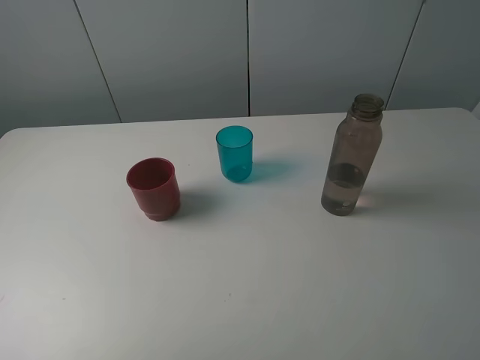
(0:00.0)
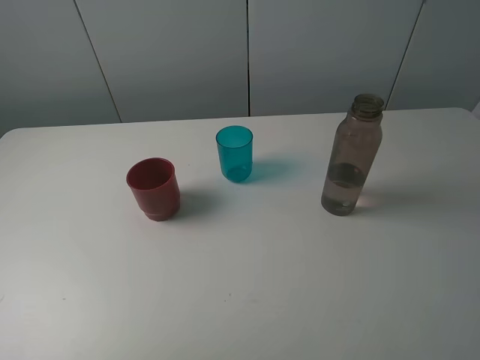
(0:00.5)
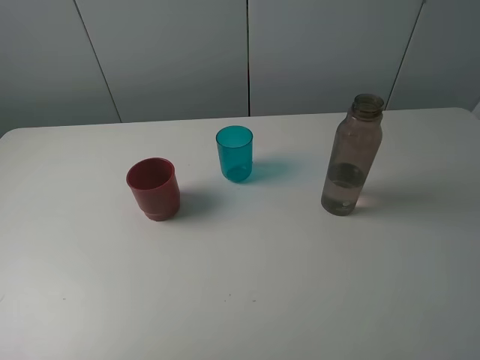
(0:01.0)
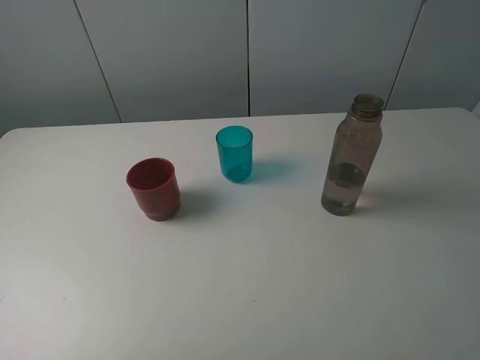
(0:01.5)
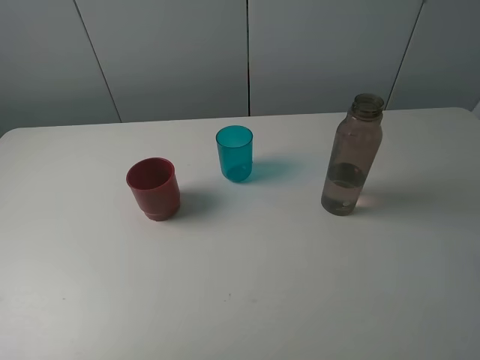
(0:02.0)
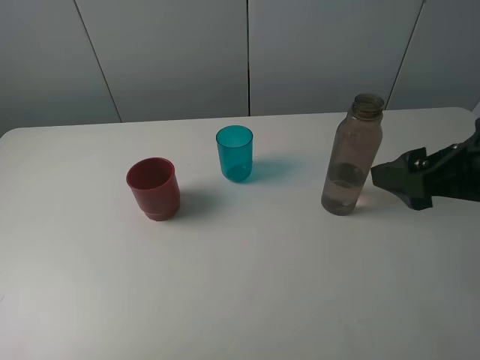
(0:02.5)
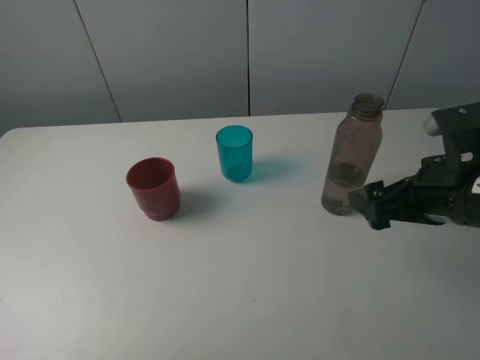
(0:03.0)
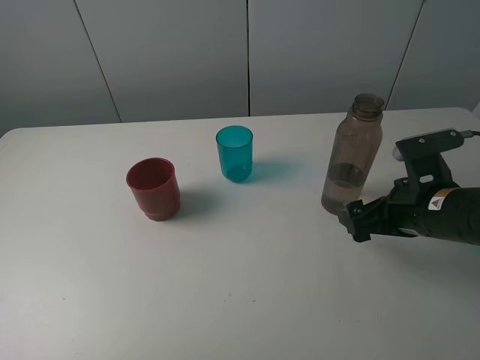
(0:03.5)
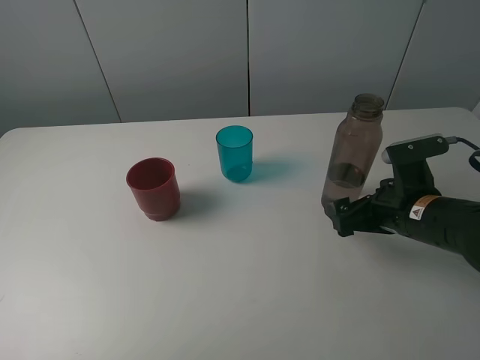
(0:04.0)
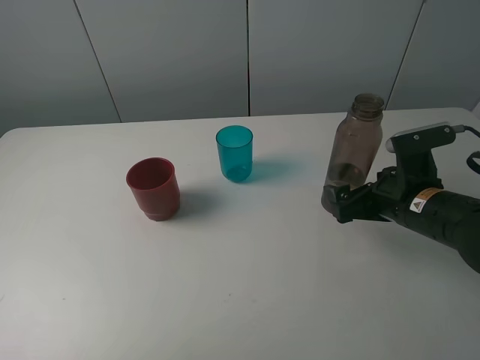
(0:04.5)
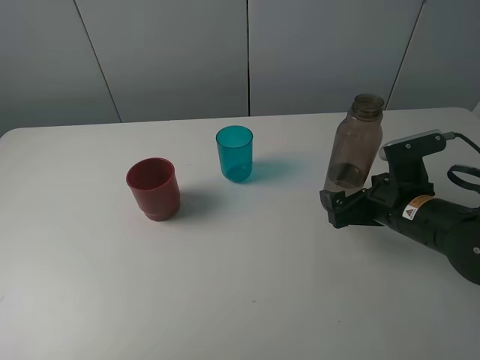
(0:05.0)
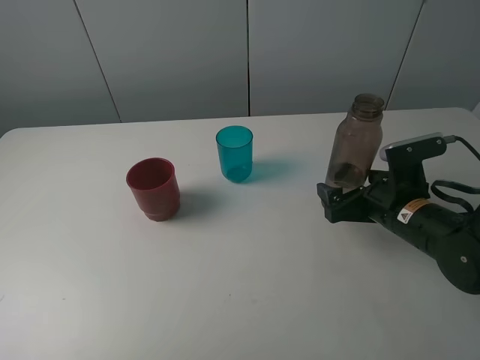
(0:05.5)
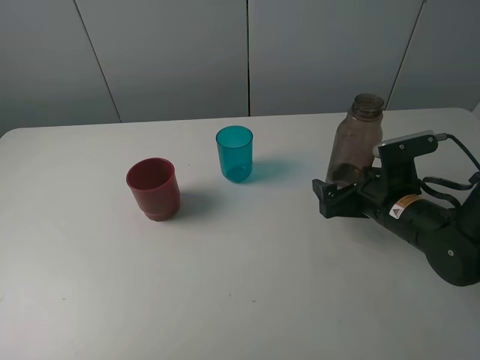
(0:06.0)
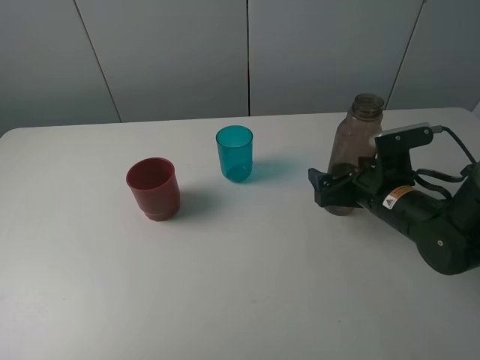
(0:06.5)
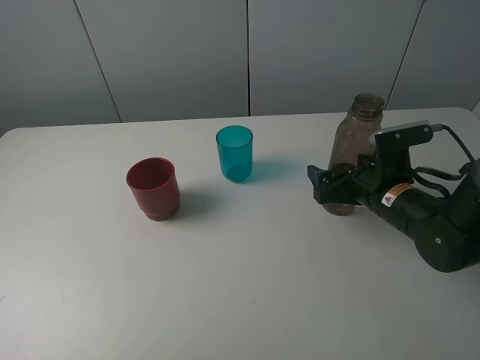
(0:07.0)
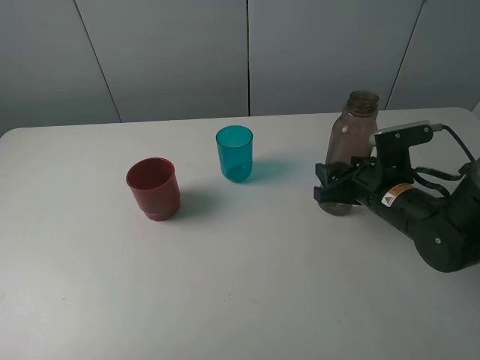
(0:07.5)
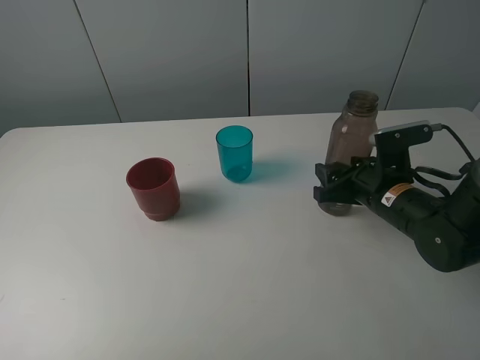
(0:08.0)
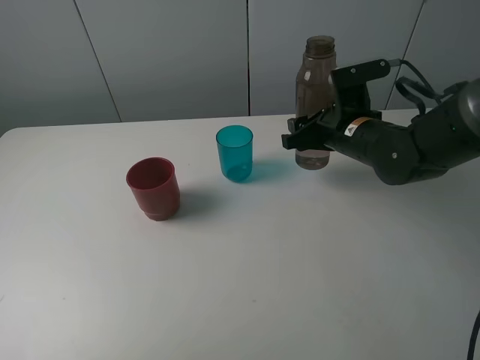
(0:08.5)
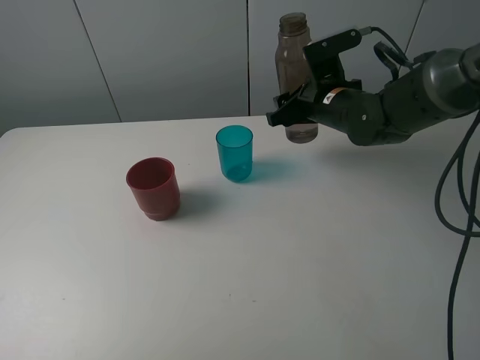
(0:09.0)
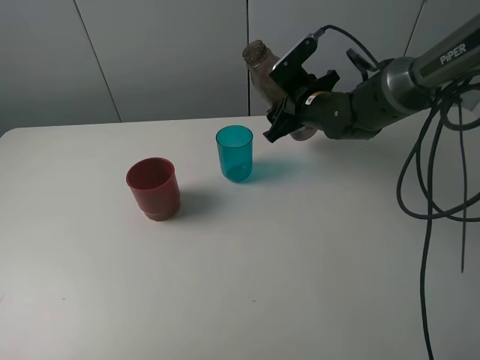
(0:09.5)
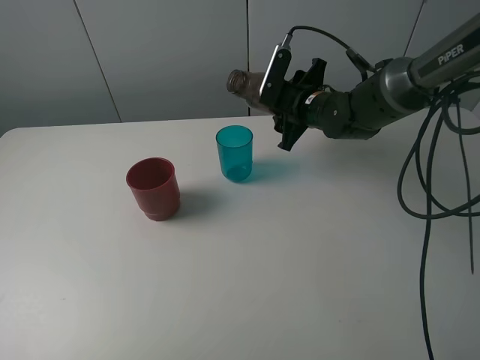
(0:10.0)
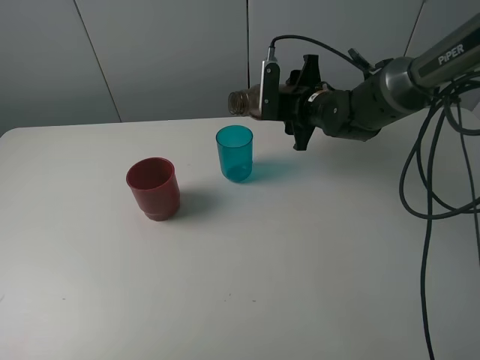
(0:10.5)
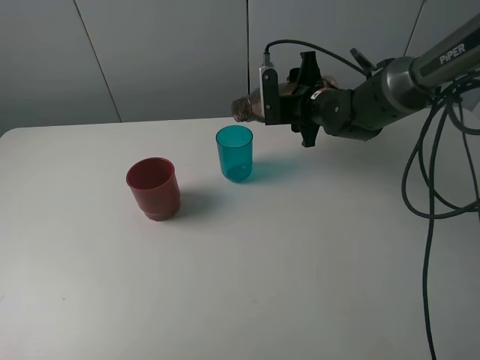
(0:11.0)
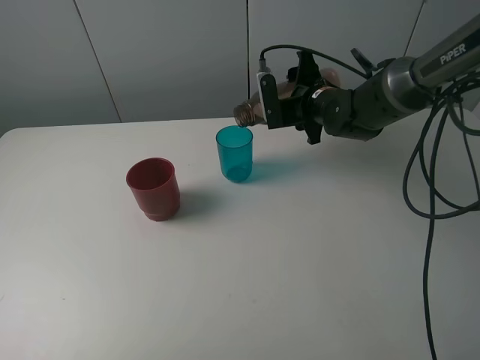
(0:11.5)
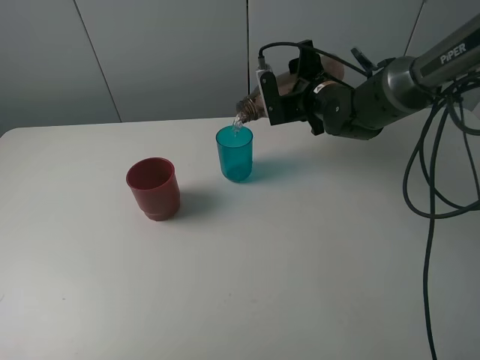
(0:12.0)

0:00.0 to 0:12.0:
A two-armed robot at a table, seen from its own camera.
Task of the whole recording: pick up the bottle and pour water into the cup, then pick up the cup containing water and pour it into another cup.
Step, 0:00.0 to 0:07.5: Grasp the brown bottle with the right gripper.
0:02.0 to 0:04.0: The right gripper travels downward and forward by approximately 25 cm.
0:04.0 to 0:06.0: There are only small adjustments of the grippers.
0:06.0 to 0:08.0: The right gripper closes.
0:08.0 to 0:10.0: The right gripper travels forward and to the left by some 15 cm.

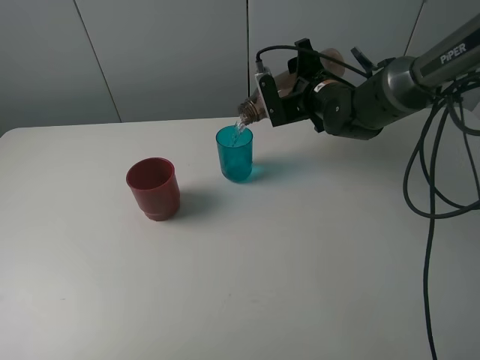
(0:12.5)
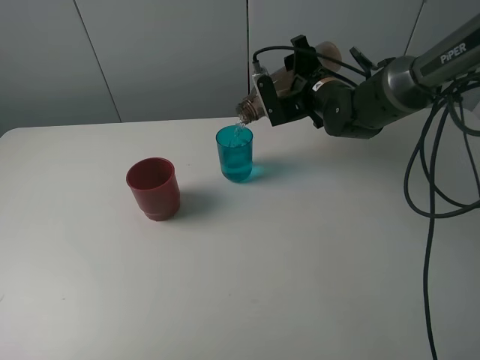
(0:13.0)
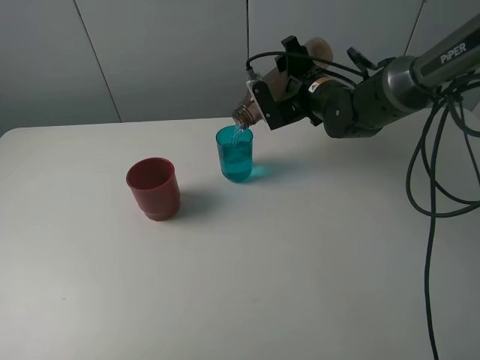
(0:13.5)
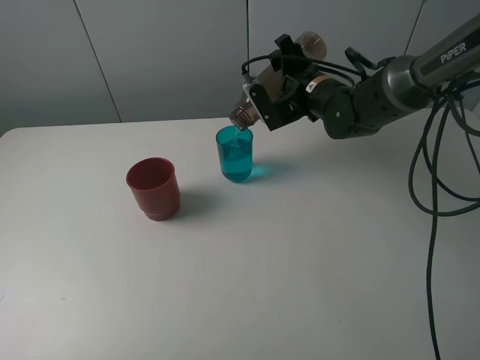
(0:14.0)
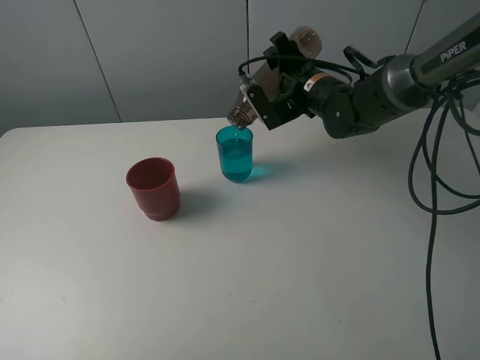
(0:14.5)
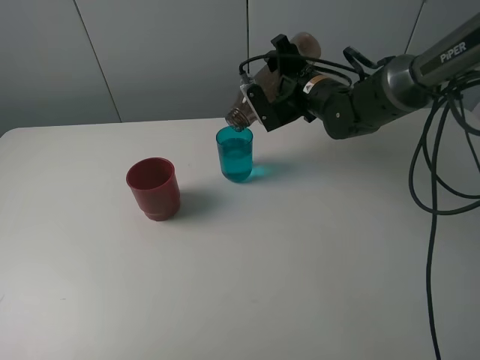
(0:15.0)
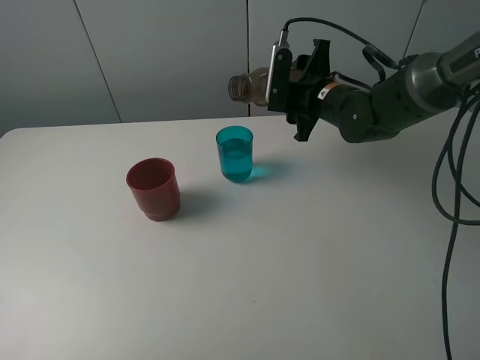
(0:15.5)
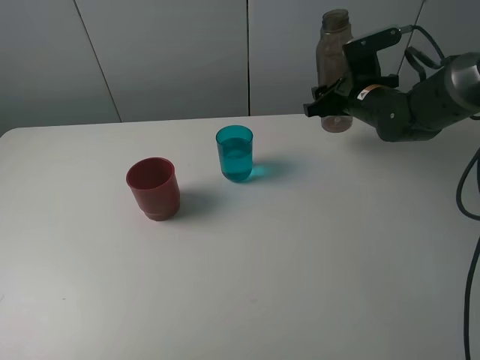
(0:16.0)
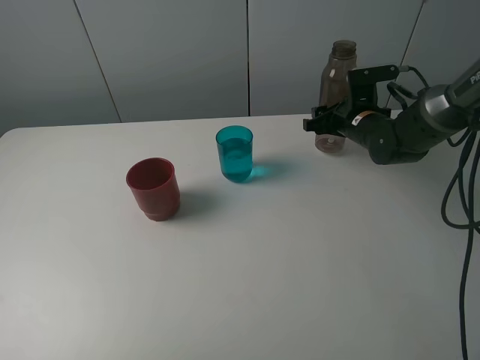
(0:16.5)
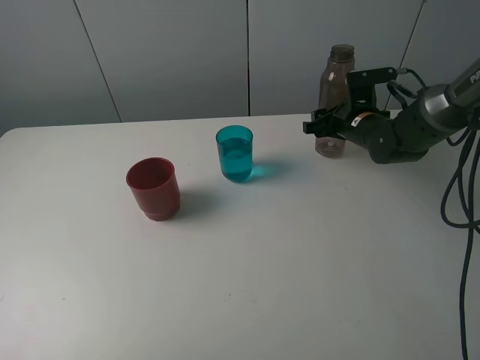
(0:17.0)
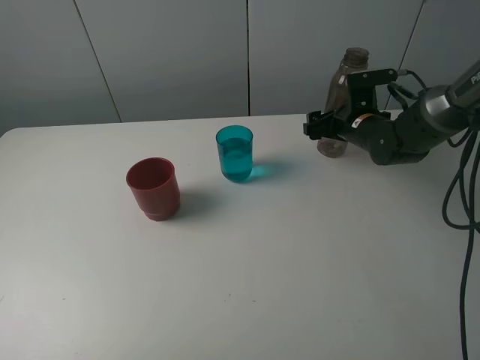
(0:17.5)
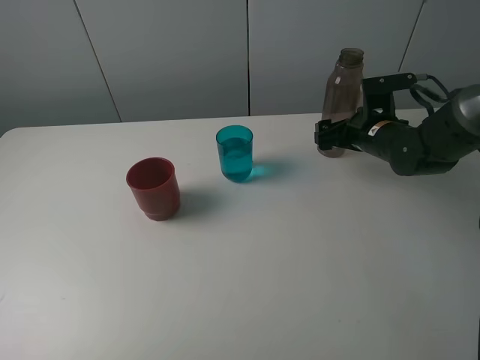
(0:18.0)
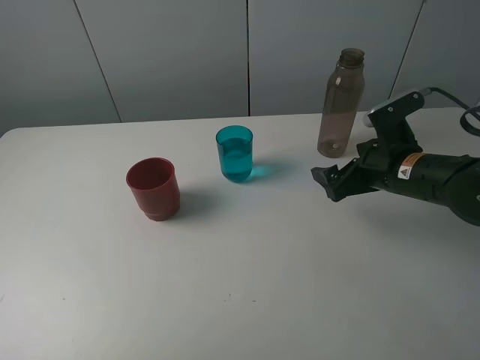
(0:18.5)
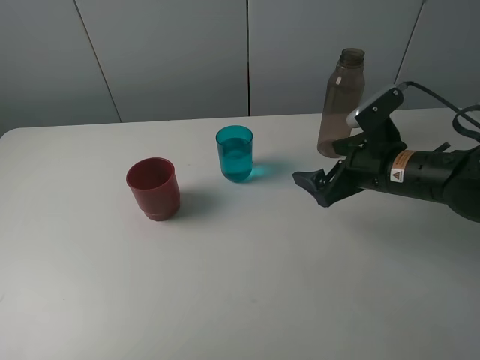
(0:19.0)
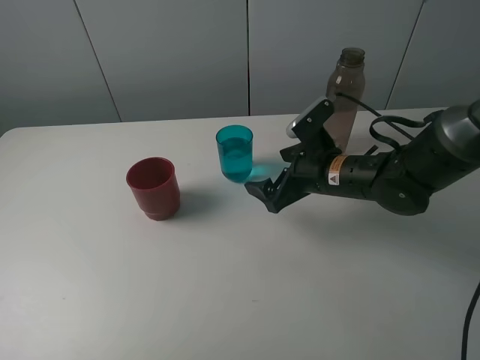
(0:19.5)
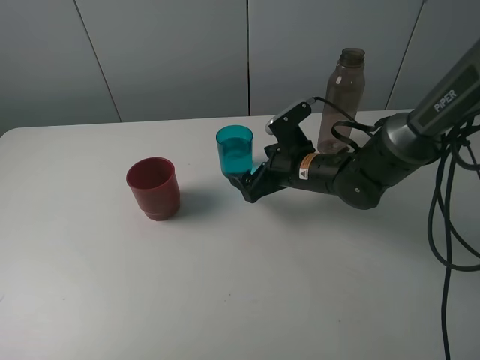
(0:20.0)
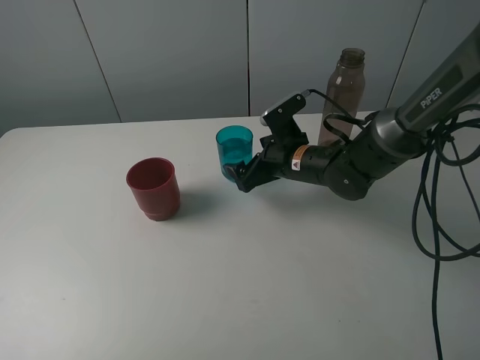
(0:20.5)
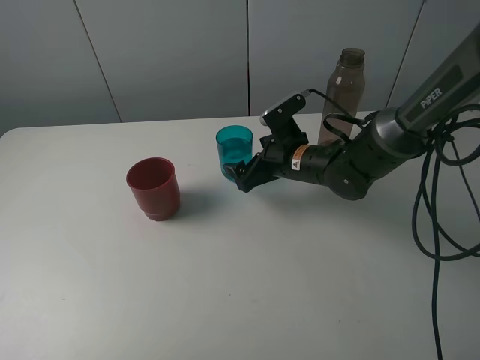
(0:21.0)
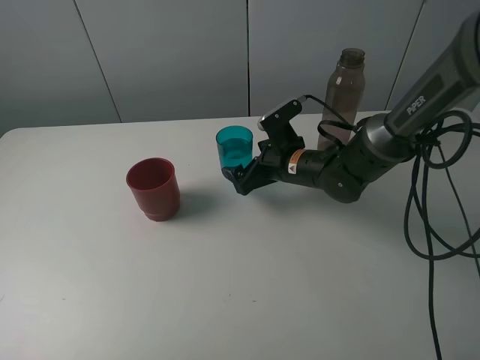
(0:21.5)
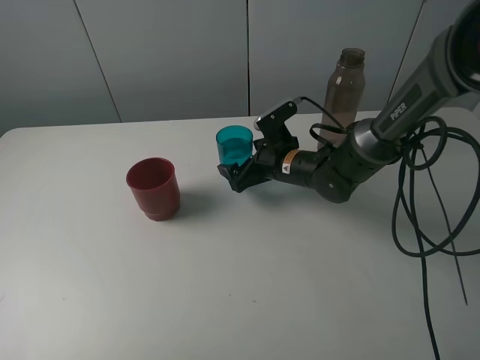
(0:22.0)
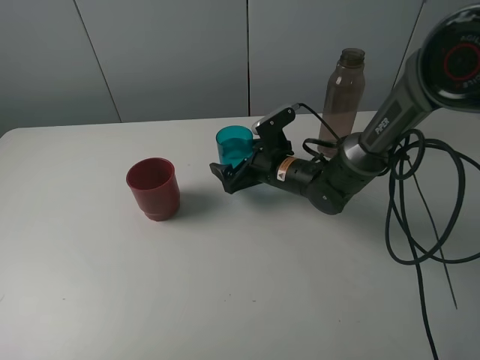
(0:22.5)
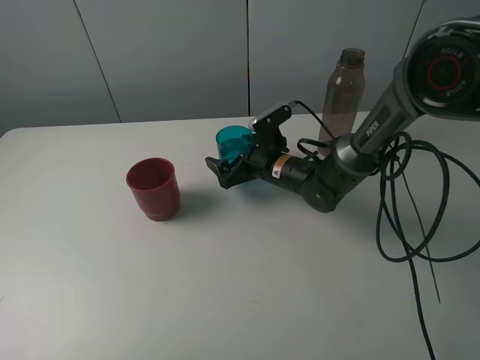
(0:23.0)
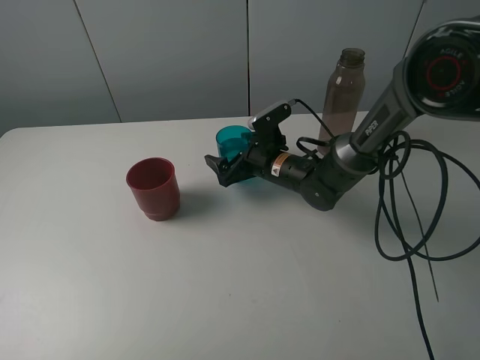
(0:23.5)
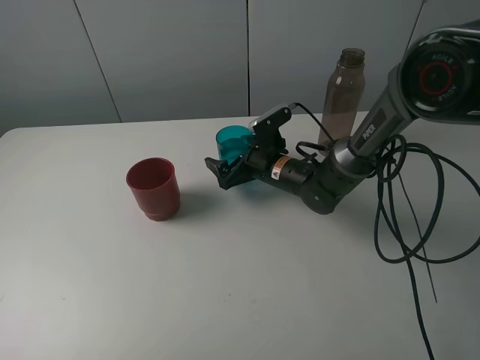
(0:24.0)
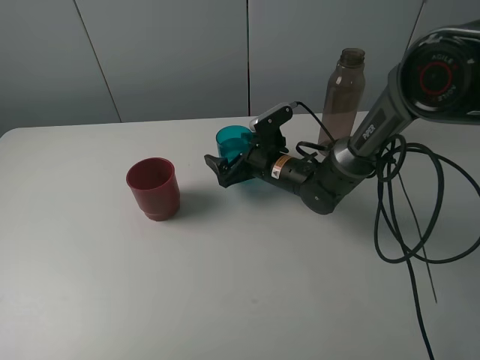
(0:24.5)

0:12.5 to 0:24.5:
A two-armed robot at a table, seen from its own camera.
Task of the whole recording: pick up the bottle and pour water into the cup, then pick up the cup containing water and pour it into another cup.
Step, 0:12.5 to 0:15.0: Pour water from brown bottle to blue cup with the right gripper.
Step, 0:15.5 to 0:17.5: Place the brown bottle with the right gripper.
0:12.5 to 0:14.5: The grippers move only a little.
0:14.5 to 0:16.5: The right gripper is displaced to the right and downward by about 10 cm.
0:16.5 to 0:18.5: The right gripper goes approximately 15 cm backward, and opens its fingers.
0:18.5 to 0:20.5: The right gripper heads to the left and forward, covering some 15 cm.
0:20.5 to 0:24.5: The grippers stay close to where they were, moving slightly.

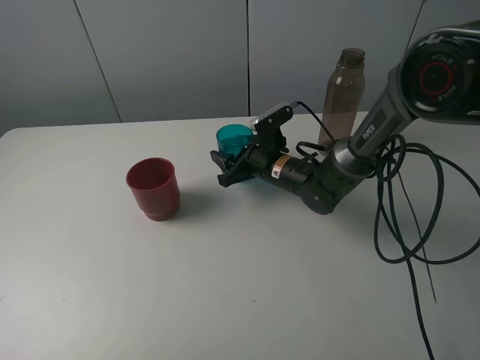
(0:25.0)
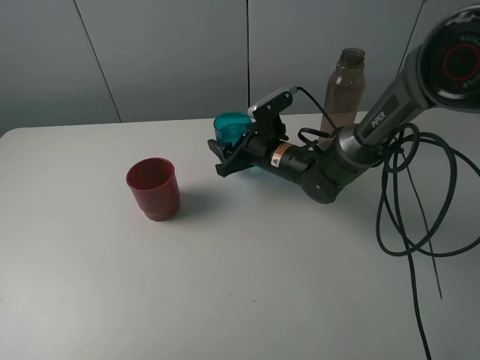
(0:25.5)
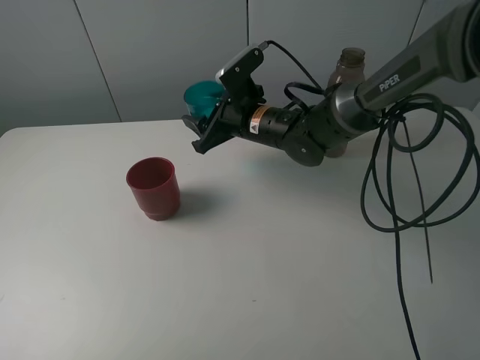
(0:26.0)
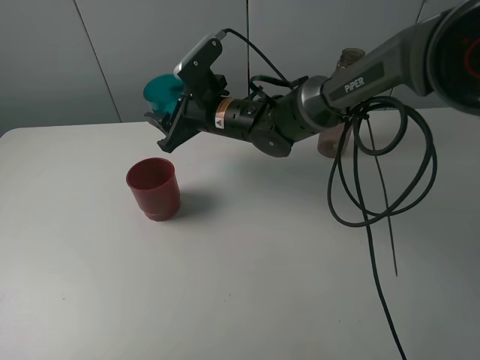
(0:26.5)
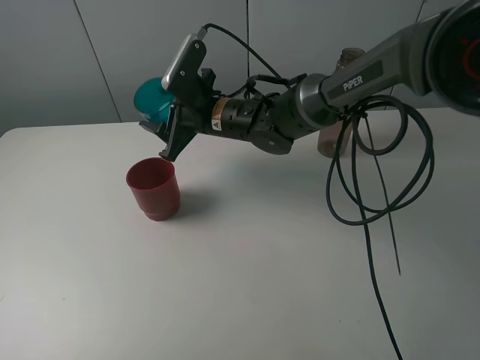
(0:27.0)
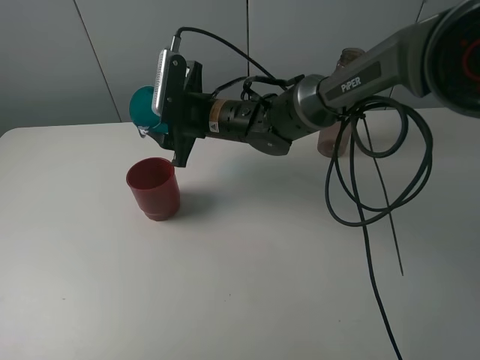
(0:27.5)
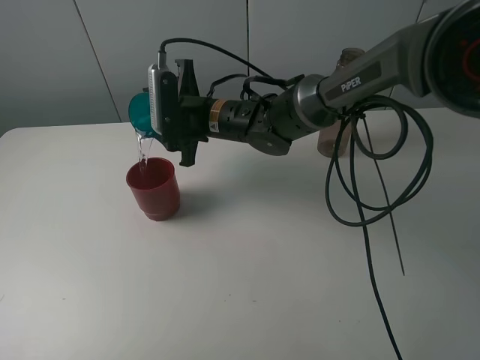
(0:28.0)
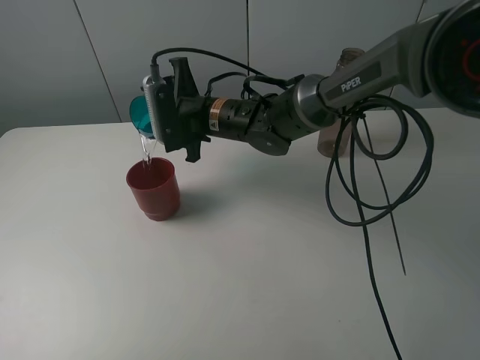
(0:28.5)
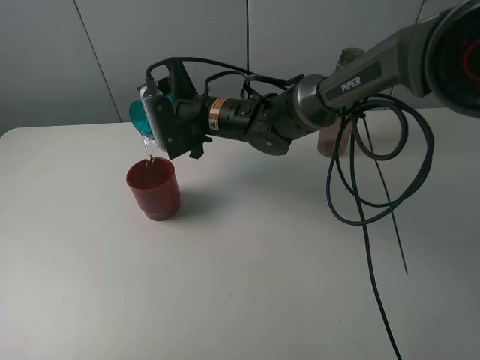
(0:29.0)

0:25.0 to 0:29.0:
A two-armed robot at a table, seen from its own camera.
Task of the whole recording: pick up the bottle and pour water into the cup, then pick up the cup containing water and pour it into another cup.
0:25.0 to 0:27.0: The right gripper moves upward and to the left, roughly 15 cm.
